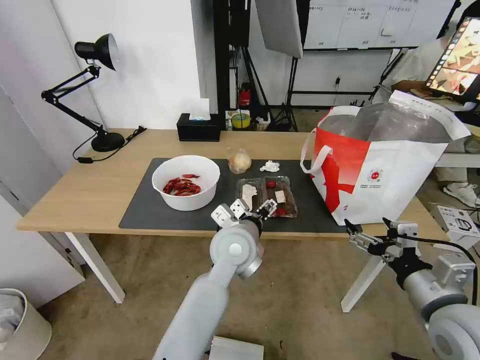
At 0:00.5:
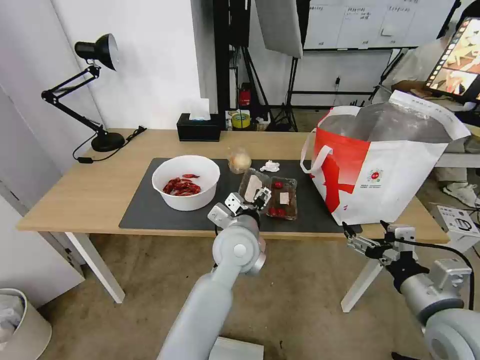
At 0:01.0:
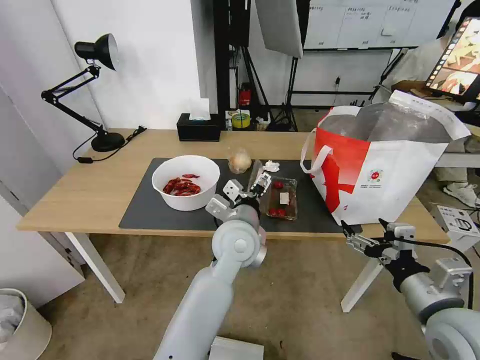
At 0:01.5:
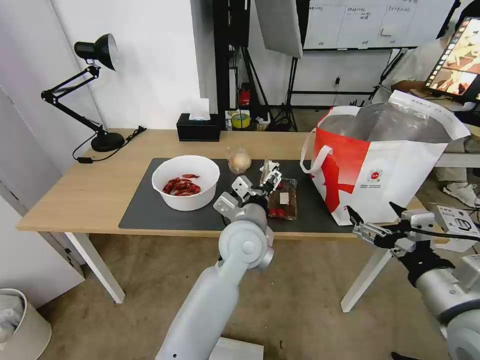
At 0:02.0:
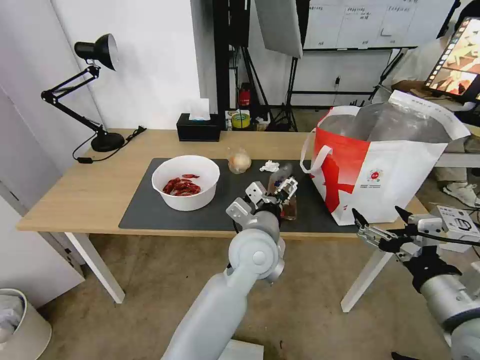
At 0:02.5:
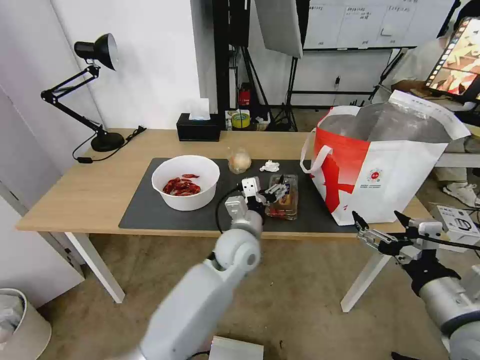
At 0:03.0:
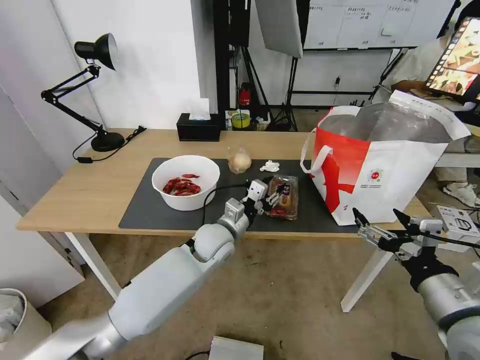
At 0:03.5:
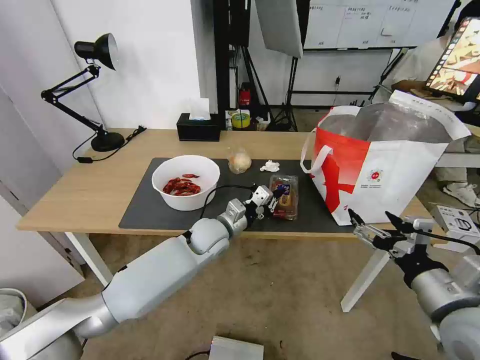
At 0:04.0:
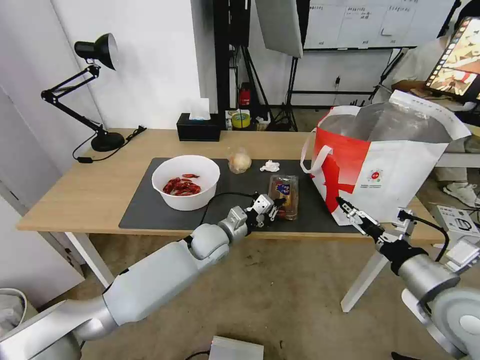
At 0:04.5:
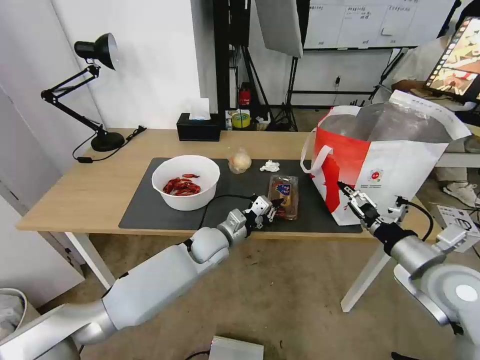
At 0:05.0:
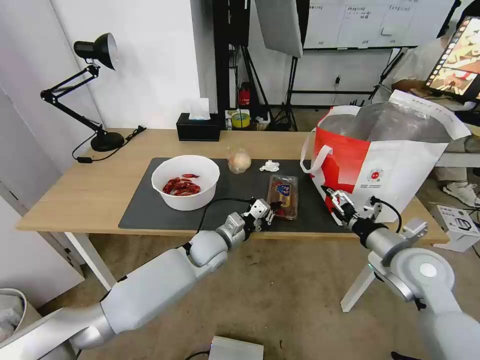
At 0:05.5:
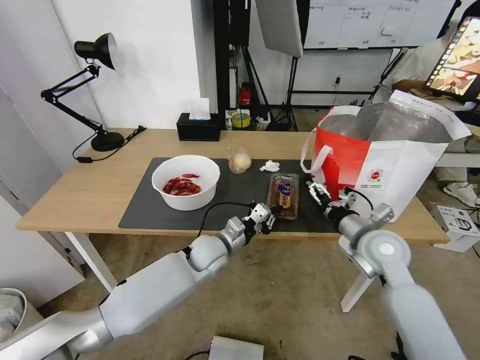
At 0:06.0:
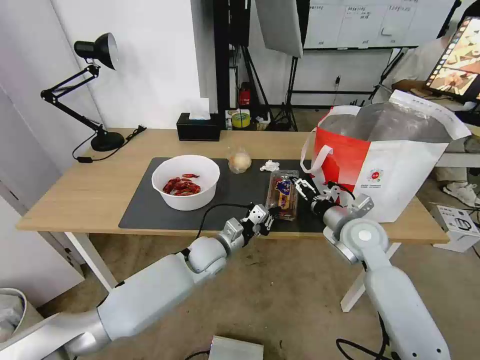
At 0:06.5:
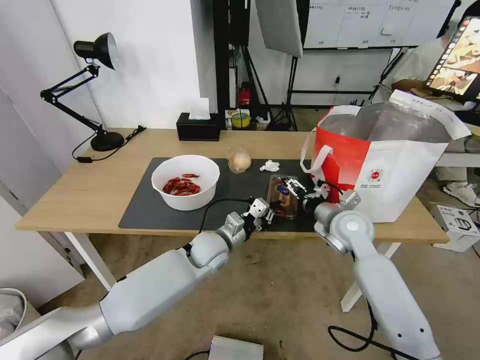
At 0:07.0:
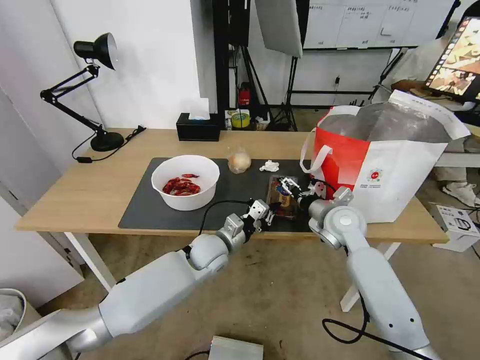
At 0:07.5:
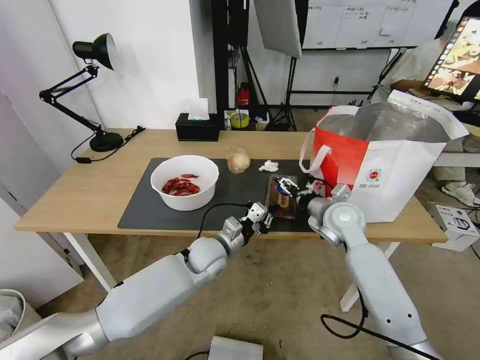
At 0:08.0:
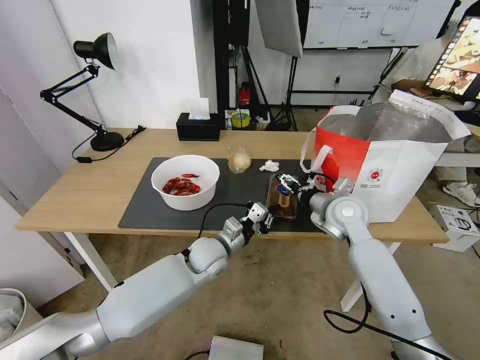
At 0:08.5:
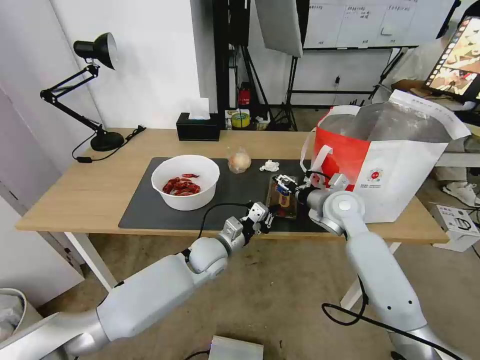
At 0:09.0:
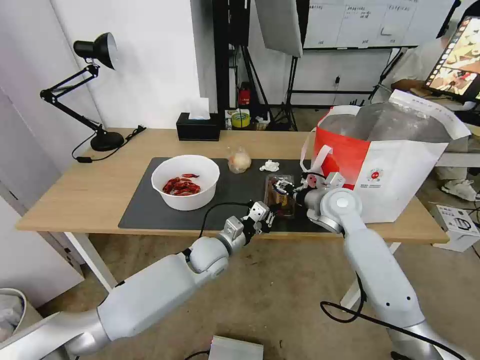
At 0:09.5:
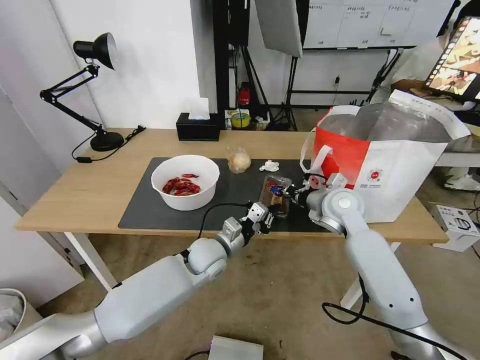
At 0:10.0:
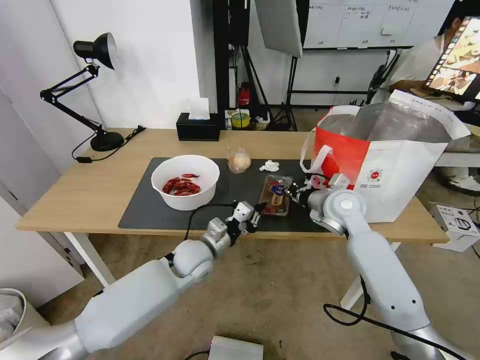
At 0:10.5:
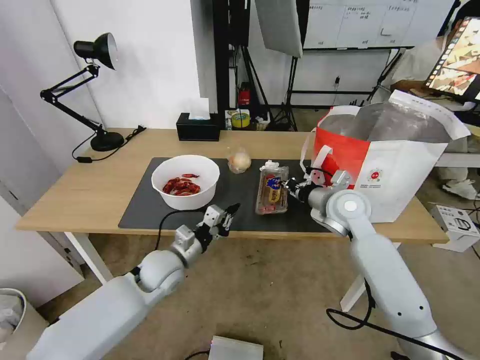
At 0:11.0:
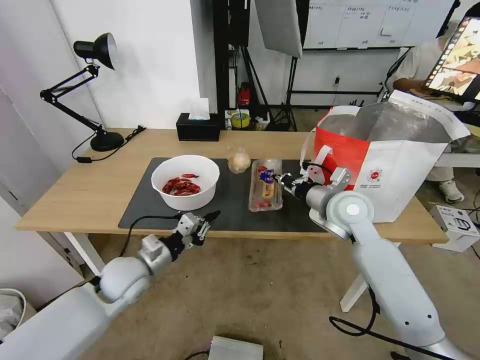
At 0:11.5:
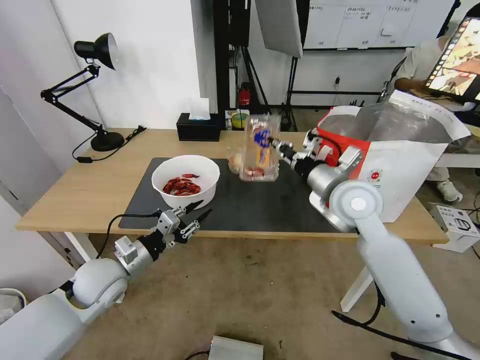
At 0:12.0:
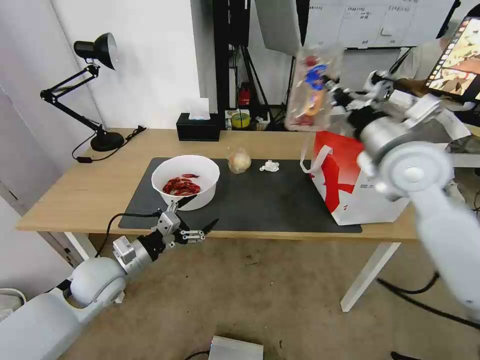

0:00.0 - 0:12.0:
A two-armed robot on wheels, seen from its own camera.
Task of the whole recording: Pick up the trash from the table and place it into the takeout bag.
0:00.0 - 0:02.0: The right gripper changes place by roughly 5 cm.
0:02.0 - 0:04.0: The right gripper shifts approximately 5 cm forward, while the left gripper moves downward, to the left and forward, some 20 cm, and closes its fingers.
0:04.0 - 0:06.0: The right gripper shifts about 20 cm forward and to the left.
0:06.0 - 0:08.0: The right gripper goes approximately 5 cm forward.
0:08.0 - 0:10.0: The right gripper closes up.
0:10.0 - 0:12.0: The left gripper goes some 20 cm to the left and backward, and opens. The right gripper shifts approximately 15 cm upward.

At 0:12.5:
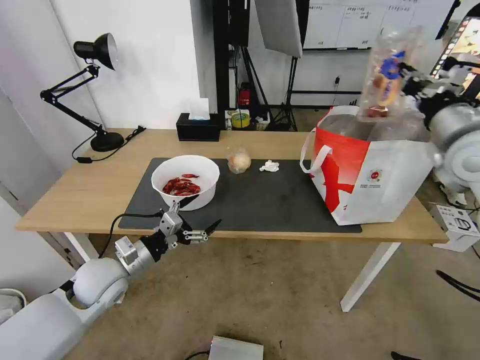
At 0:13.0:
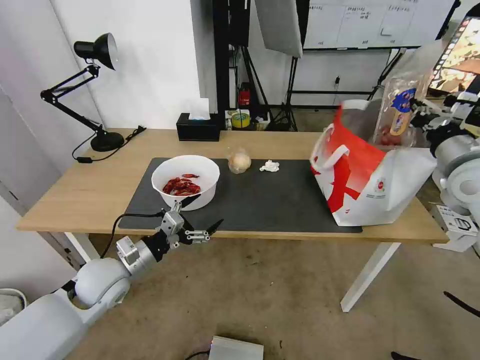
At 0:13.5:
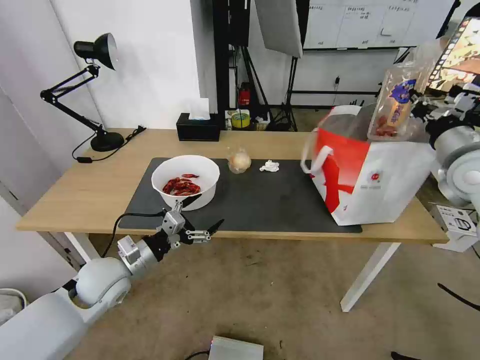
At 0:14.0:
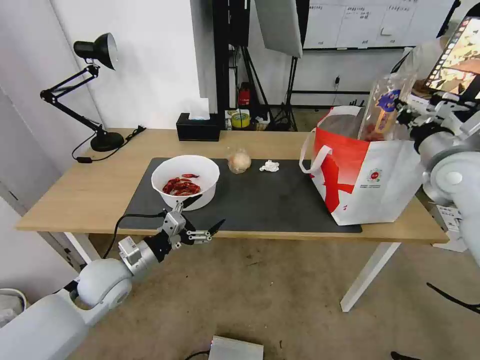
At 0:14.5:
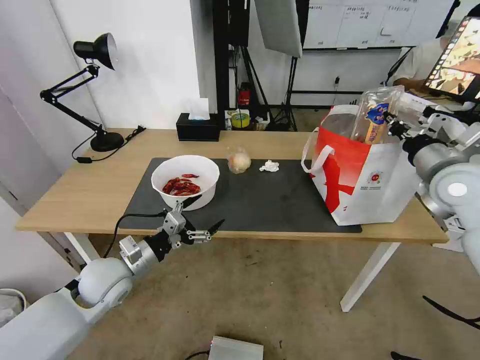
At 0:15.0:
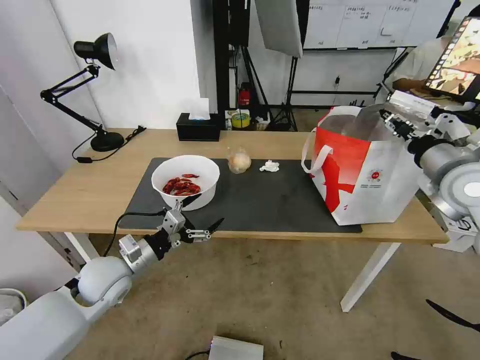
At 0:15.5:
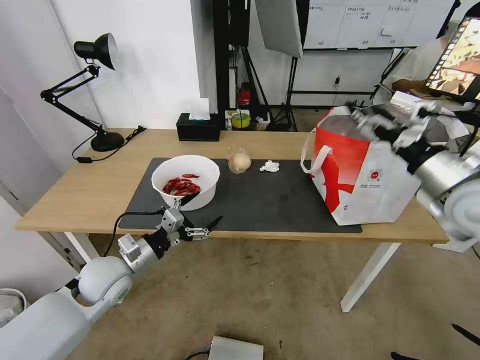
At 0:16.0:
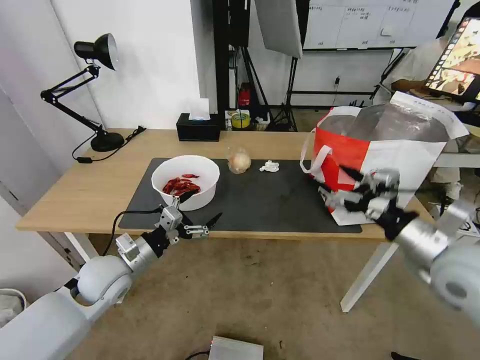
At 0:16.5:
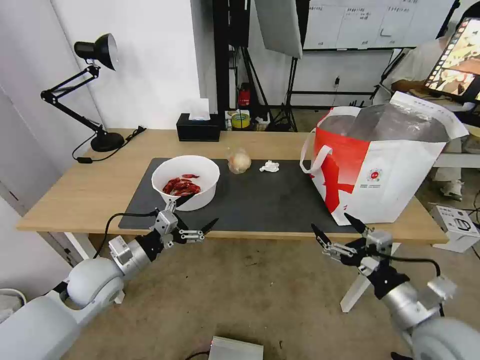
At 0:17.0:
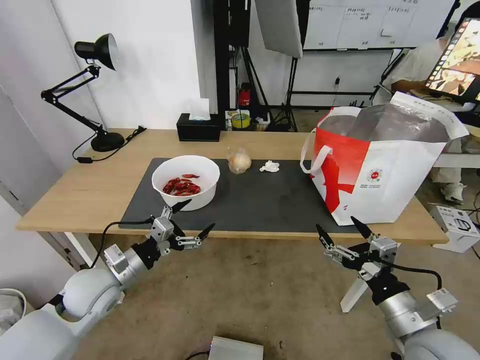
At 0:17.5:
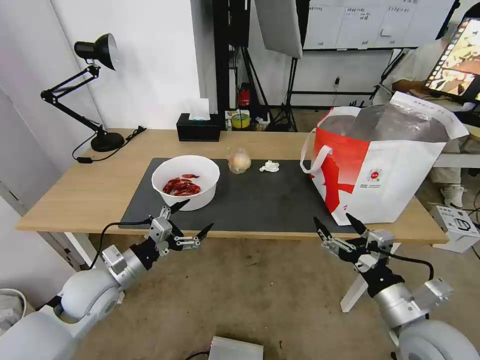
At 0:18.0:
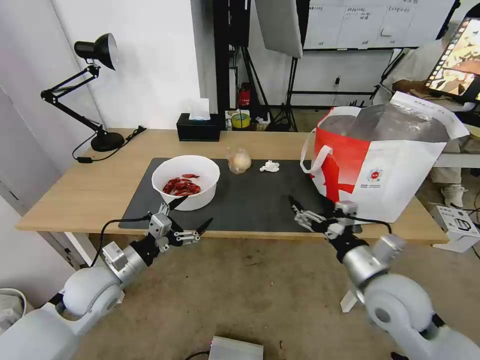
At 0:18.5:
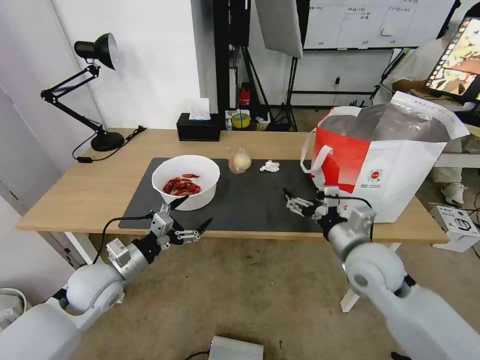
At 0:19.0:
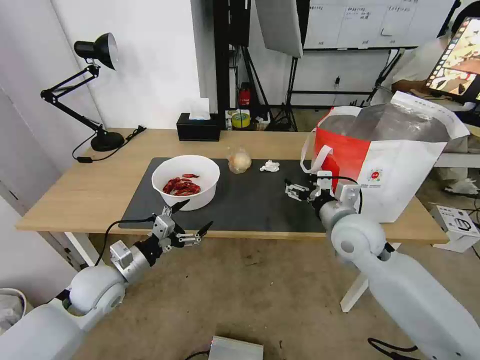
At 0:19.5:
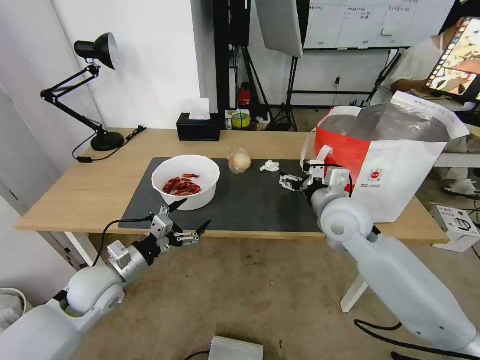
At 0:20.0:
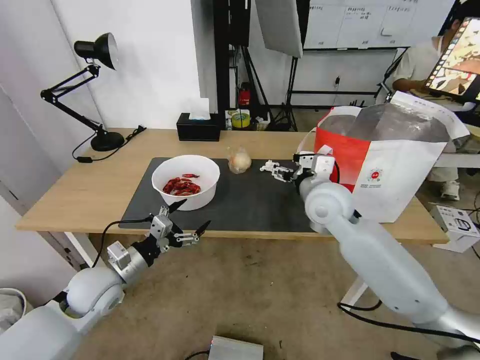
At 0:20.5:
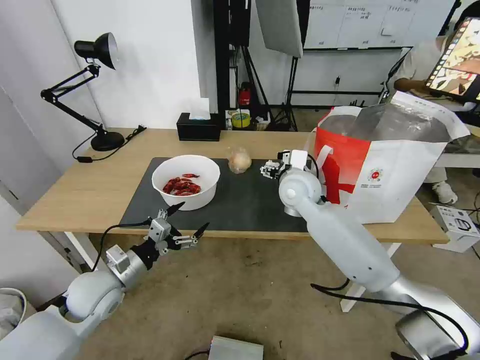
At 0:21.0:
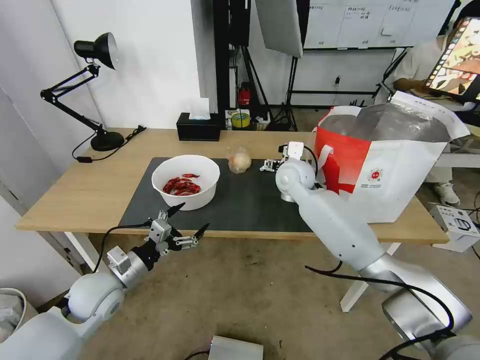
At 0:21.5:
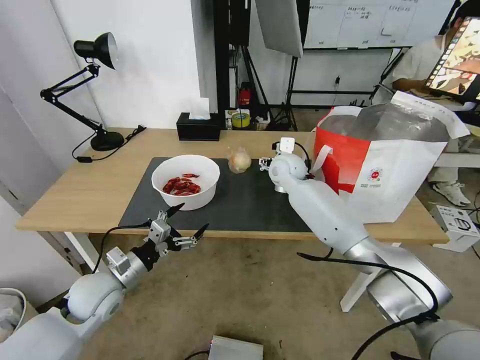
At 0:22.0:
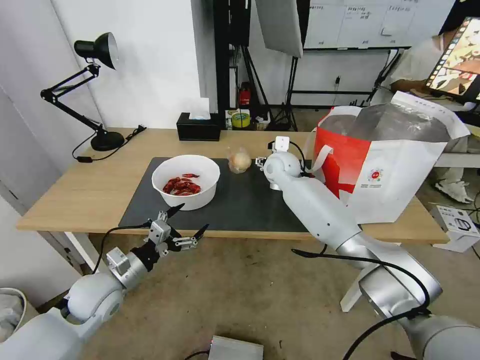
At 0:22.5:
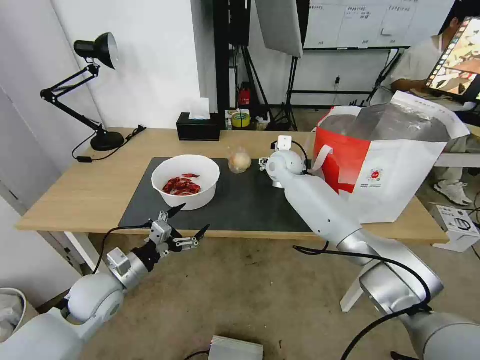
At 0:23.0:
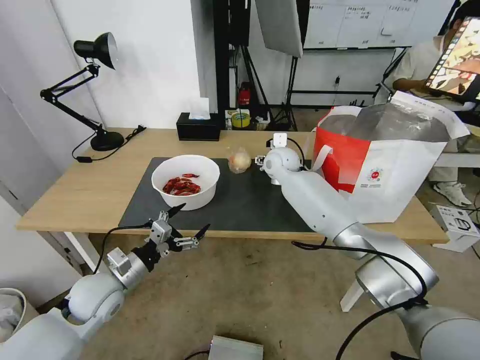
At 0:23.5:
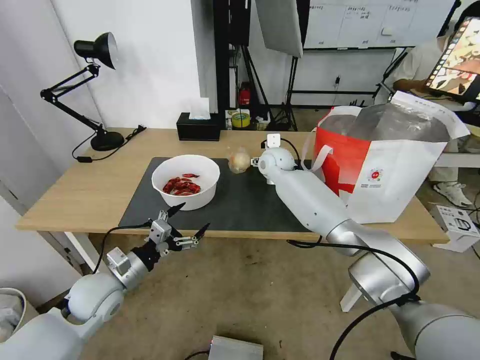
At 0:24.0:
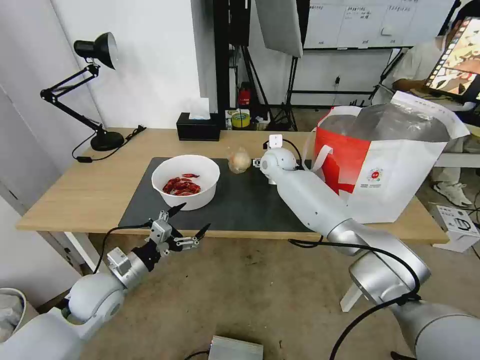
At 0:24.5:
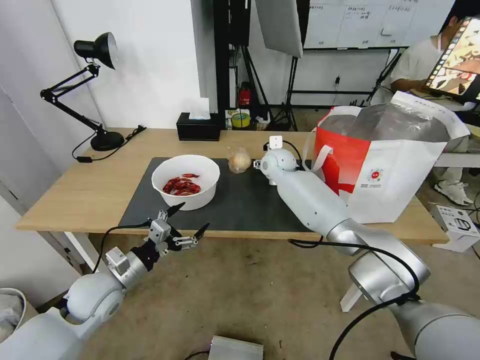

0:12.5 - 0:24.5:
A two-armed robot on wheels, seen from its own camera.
Task of the whole recording: Pick up the trash from the table and place it into the takeout bag.
0:12.5 - 0:14.5: The right gripper moves downward, approximately 5 cm.
0:14.5 - 0:16.5: The right gripper is displaced backward and downward by roughly 25 cm, and opens its fingers.
0:16.5 - 0:18.5: The right gripper travels forward and to the left by about 15 cm.
0:18.5 - 0:20.5: The right gripper heads forward and to the left, covering roughly 20 cm.
0:20.5 - 0:22.5: The right gripper goes approximately 10 cm forward.
0:22.5 - 0:24.5: The grippers make only small movements.

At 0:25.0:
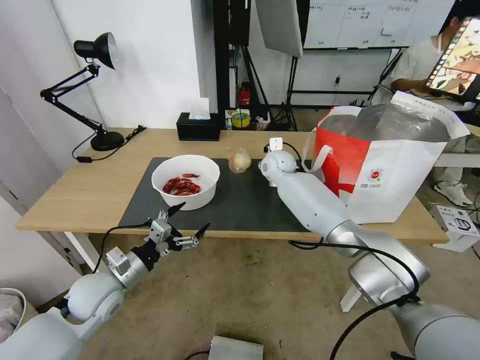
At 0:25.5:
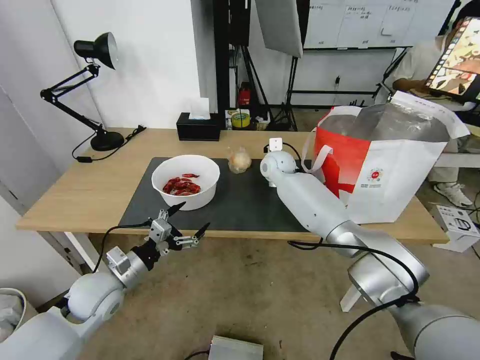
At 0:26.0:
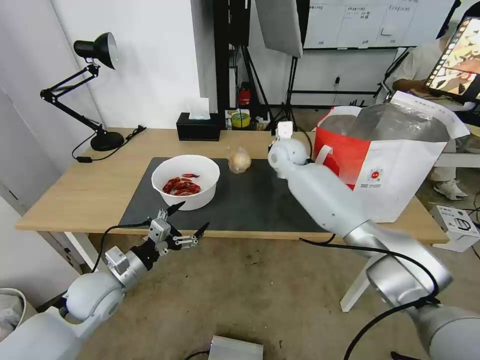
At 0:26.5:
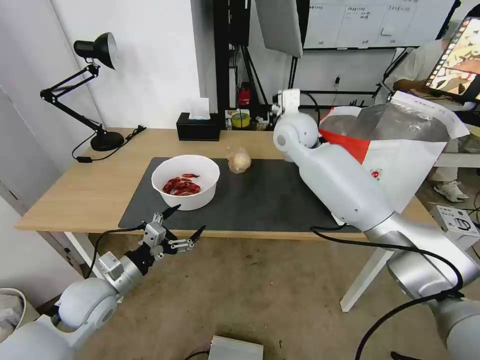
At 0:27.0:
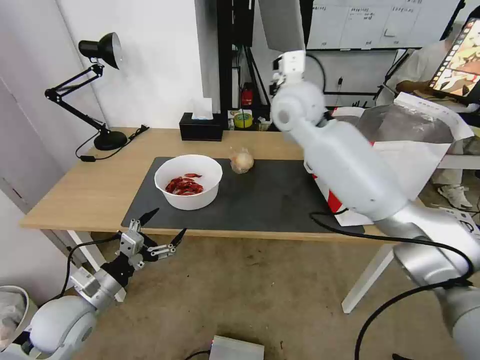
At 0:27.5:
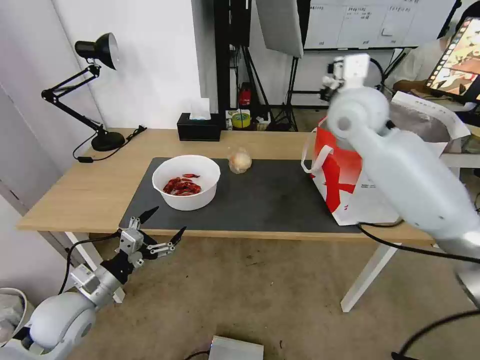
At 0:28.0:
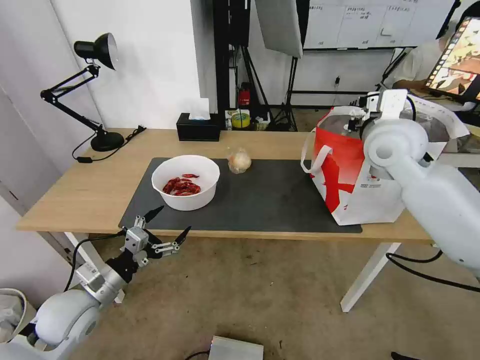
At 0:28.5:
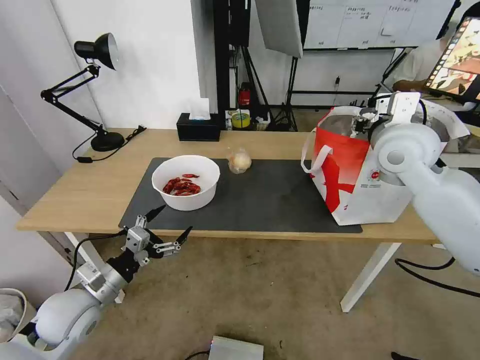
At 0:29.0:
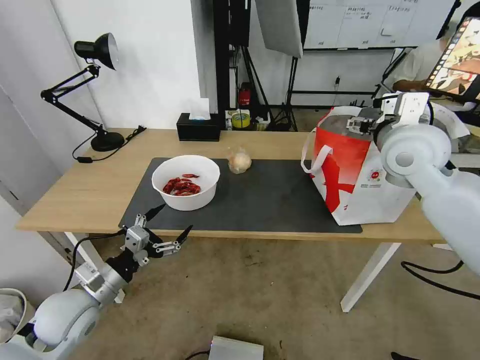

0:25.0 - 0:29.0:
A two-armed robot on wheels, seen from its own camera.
Task of the whole recording: Pick up the trash from the table and place it into the takeout bag.
0:25.0 - 0:27.0: The left gripper travels backward by approximately 5 cm. Meanwhile the right gripper moves upward and backward, some 25 cm, and closes its fingers.
0:27.0 - 0:29.0: The right gripper shifts some 20 cm to the right and backward, and opens.
